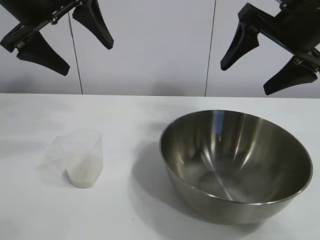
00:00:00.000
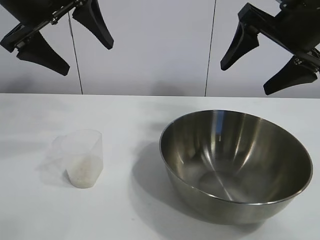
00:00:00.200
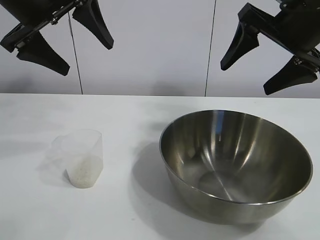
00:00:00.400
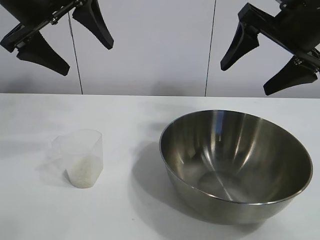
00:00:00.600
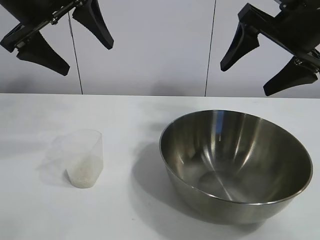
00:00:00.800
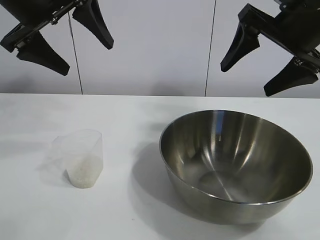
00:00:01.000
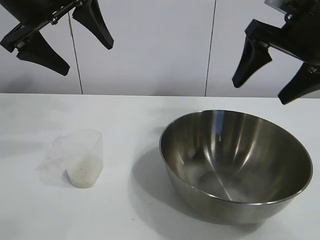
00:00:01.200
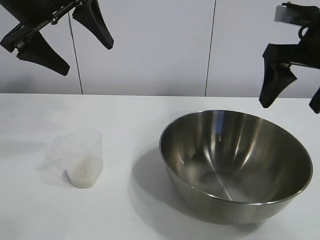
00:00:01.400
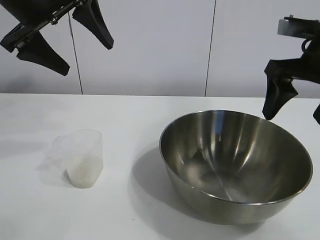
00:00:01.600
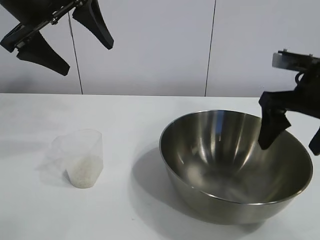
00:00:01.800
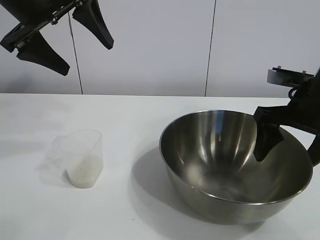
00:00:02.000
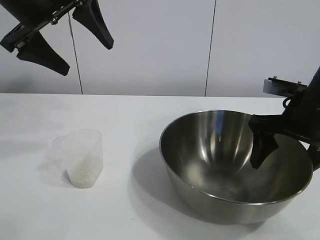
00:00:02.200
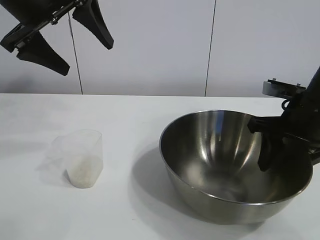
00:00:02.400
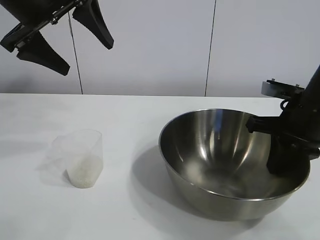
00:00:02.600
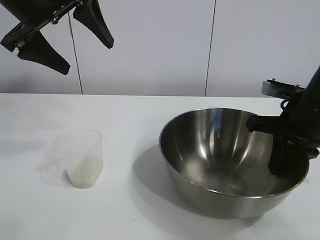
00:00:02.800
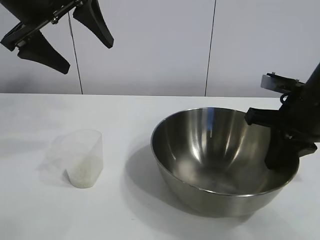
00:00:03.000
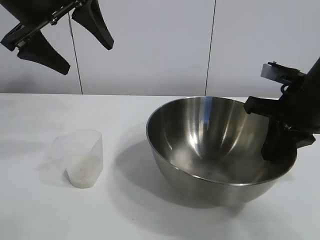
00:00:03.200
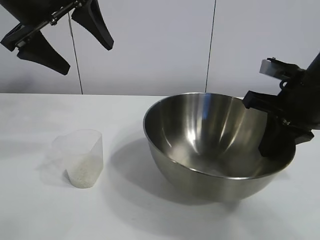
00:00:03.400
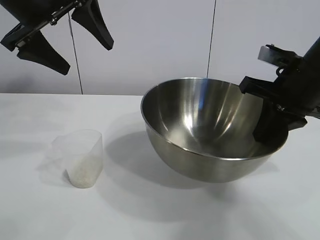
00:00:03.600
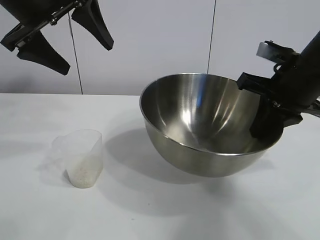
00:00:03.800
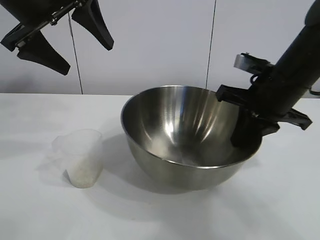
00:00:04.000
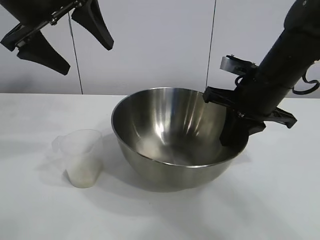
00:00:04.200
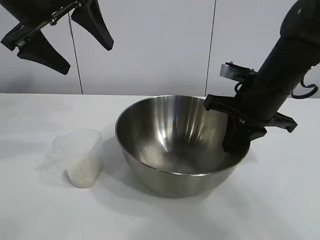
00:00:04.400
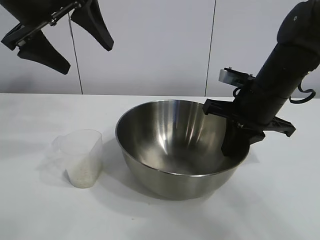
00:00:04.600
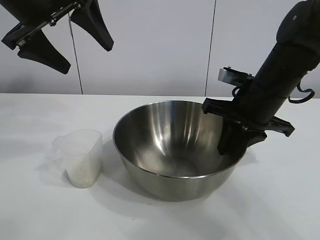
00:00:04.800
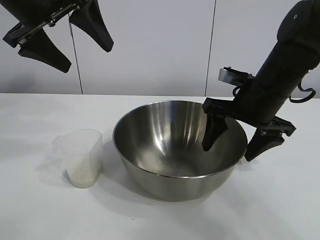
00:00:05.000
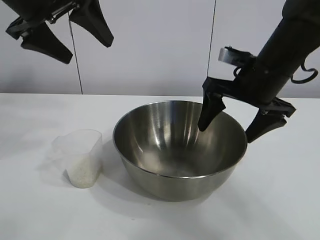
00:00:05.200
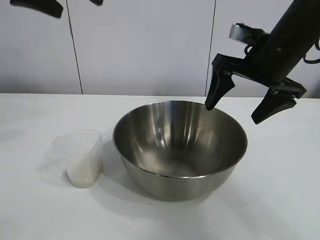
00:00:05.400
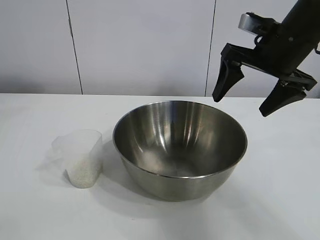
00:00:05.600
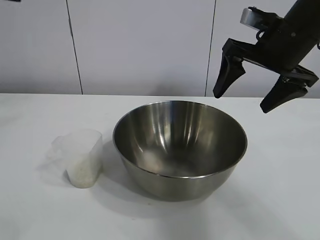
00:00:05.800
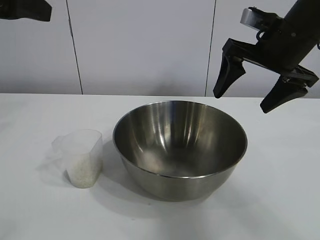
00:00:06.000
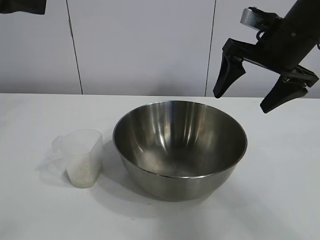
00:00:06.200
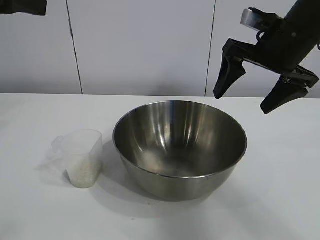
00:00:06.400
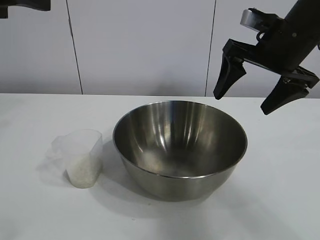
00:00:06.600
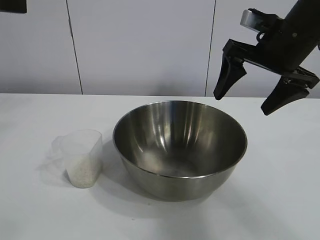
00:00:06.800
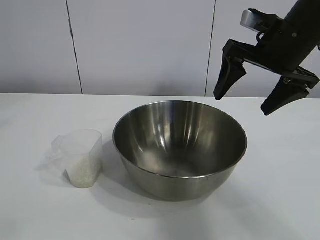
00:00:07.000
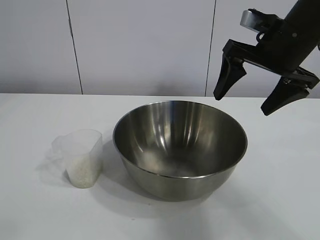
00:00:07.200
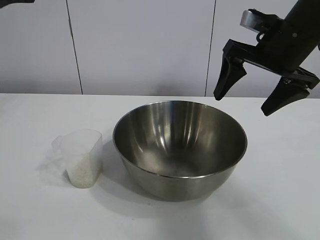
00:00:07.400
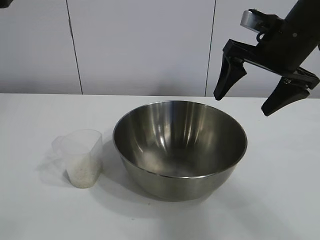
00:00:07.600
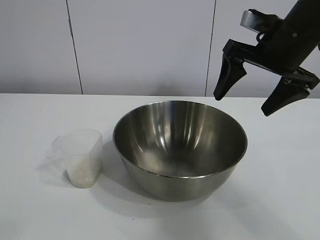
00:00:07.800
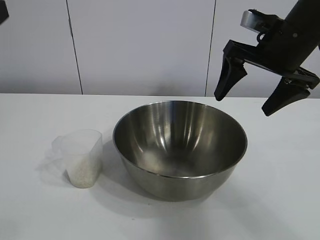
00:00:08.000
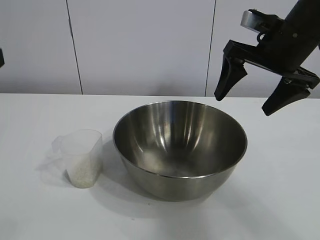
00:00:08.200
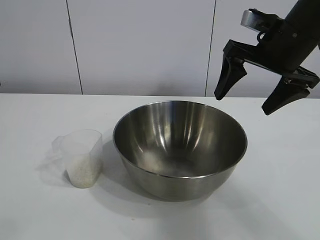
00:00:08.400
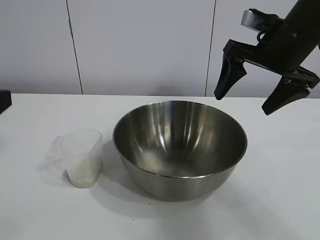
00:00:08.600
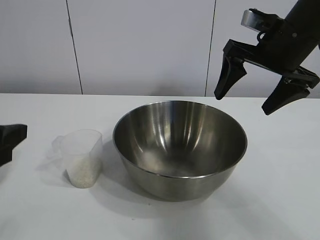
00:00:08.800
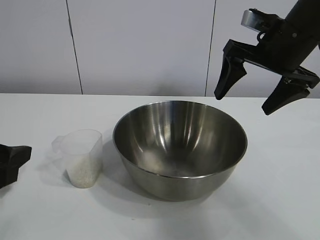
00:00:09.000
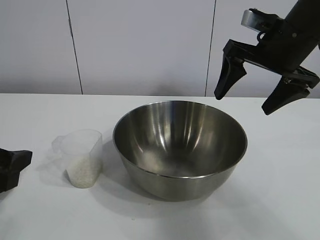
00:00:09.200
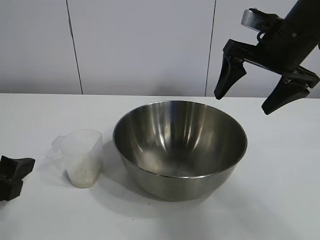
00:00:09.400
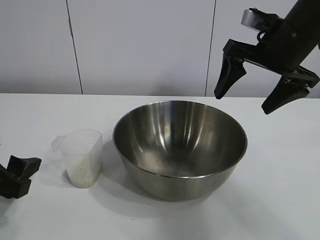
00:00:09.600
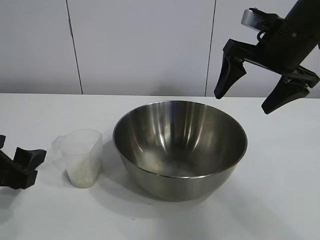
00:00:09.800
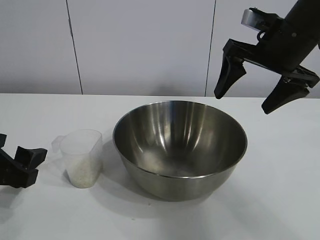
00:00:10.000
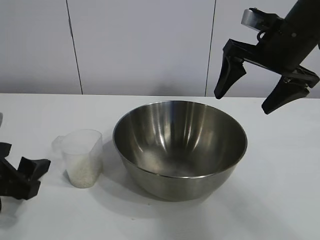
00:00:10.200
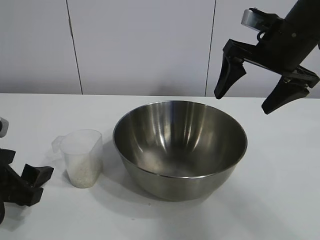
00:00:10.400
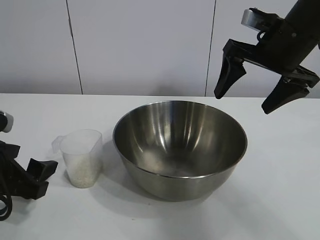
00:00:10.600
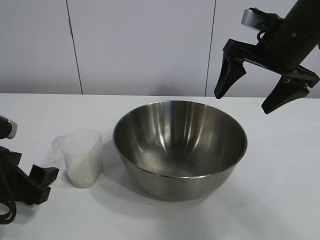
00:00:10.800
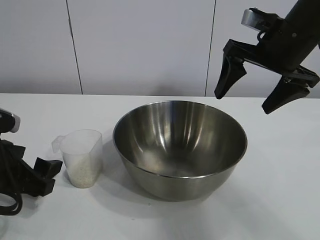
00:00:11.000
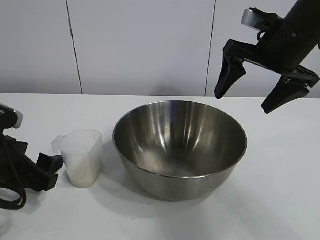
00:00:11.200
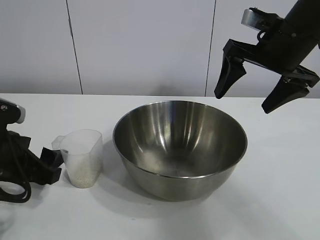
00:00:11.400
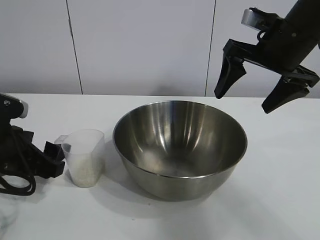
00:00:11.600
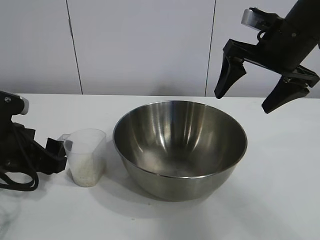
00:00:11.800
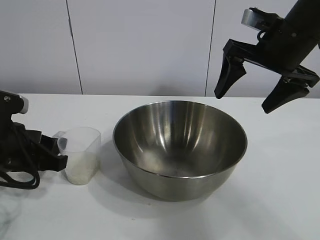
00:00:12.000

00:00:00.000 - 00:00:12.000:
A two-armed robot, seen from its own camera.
Task of the whole recording: the right gripper grasp the rice container and place it in the center of the table, the left gripper grasp the rice scoop and pour the rice into the rice container.
Step, 00:00:01.000 - 00:00:05.000: Move the bowl in the center of view with right gripper.

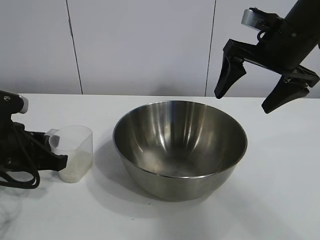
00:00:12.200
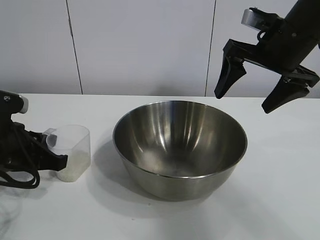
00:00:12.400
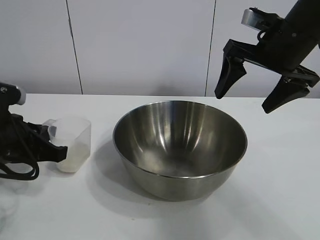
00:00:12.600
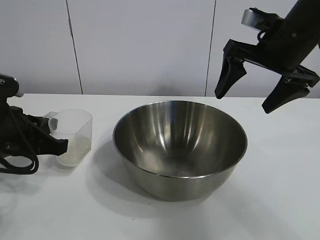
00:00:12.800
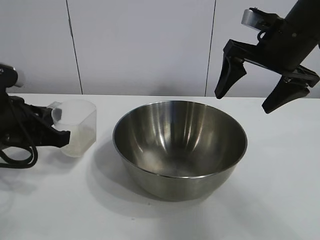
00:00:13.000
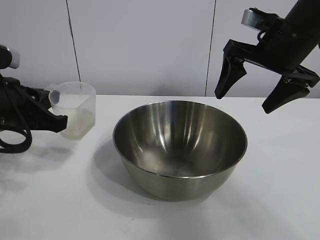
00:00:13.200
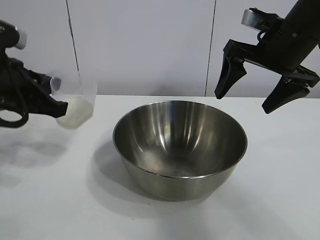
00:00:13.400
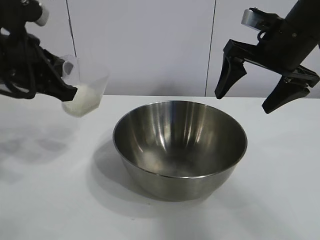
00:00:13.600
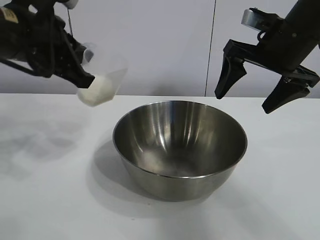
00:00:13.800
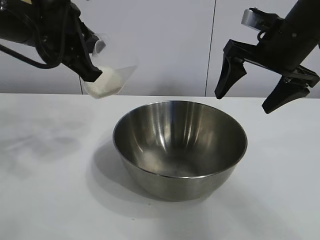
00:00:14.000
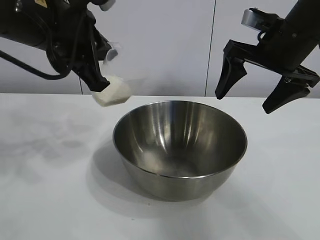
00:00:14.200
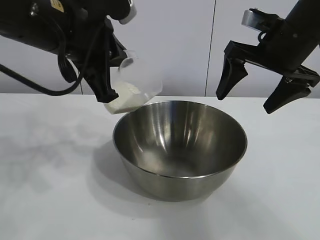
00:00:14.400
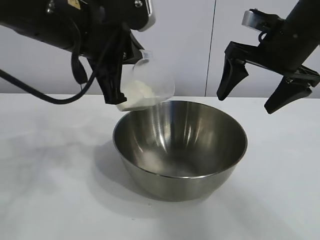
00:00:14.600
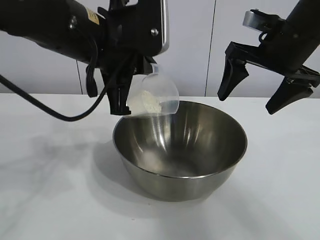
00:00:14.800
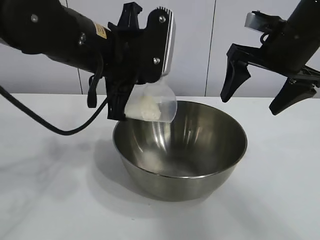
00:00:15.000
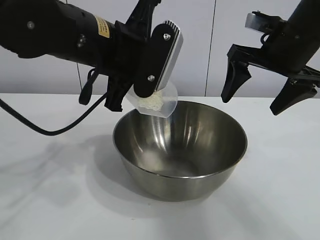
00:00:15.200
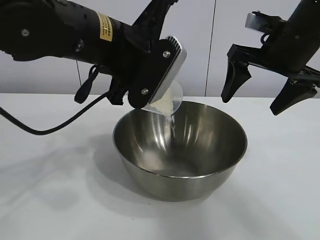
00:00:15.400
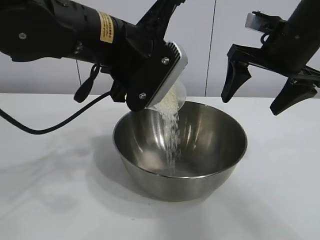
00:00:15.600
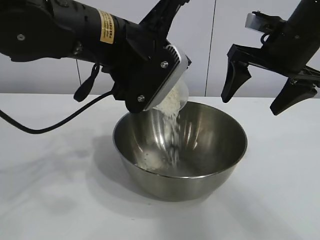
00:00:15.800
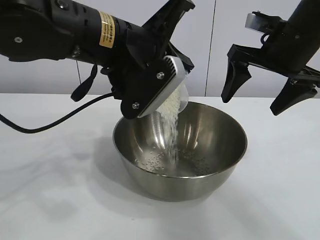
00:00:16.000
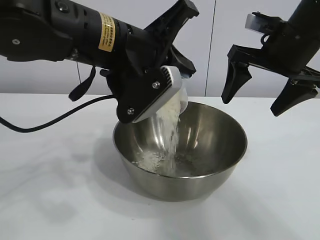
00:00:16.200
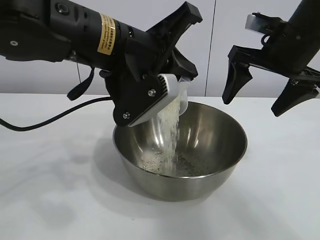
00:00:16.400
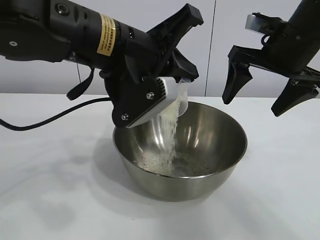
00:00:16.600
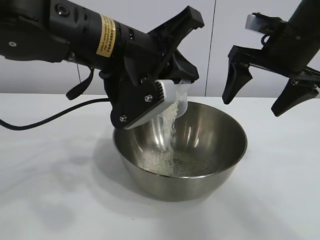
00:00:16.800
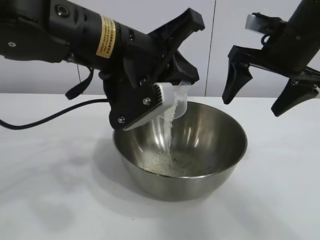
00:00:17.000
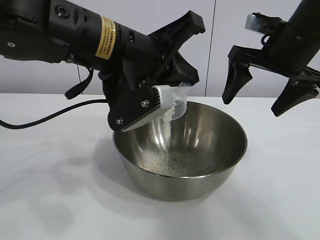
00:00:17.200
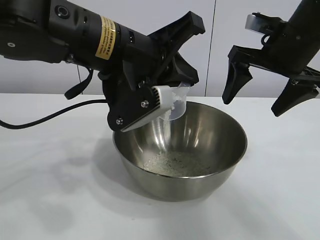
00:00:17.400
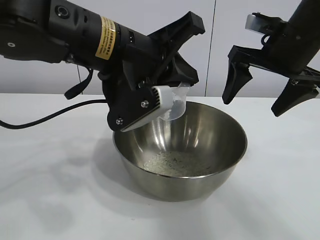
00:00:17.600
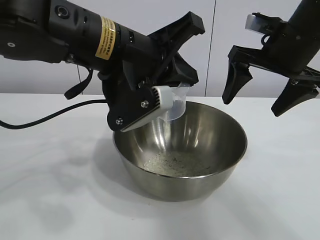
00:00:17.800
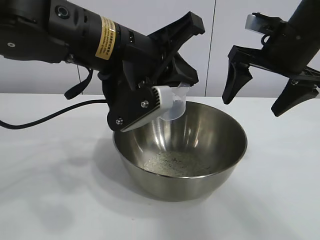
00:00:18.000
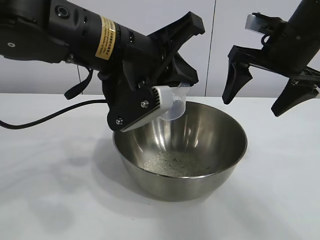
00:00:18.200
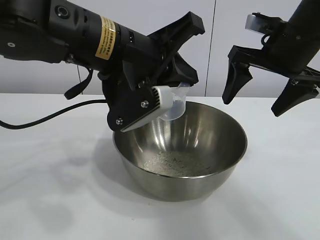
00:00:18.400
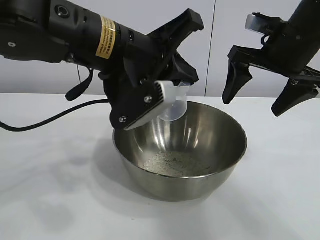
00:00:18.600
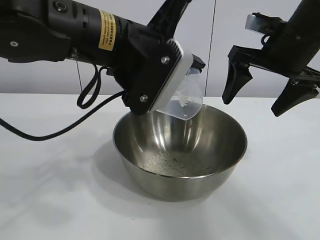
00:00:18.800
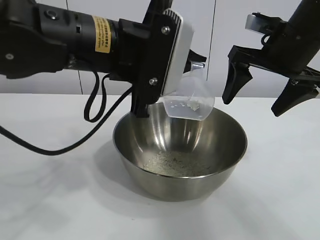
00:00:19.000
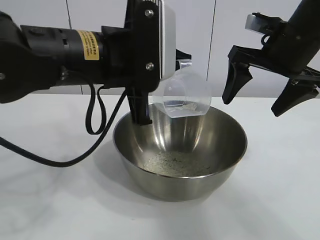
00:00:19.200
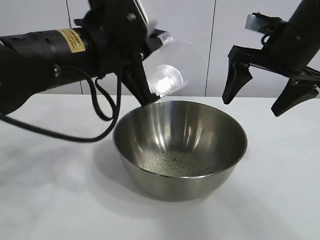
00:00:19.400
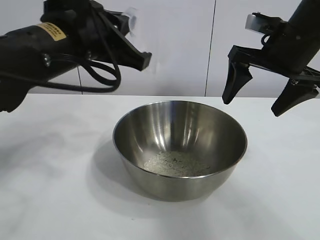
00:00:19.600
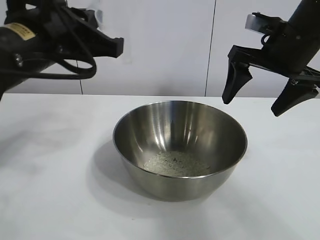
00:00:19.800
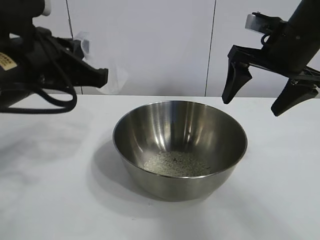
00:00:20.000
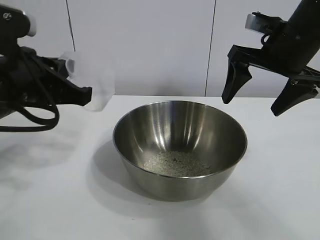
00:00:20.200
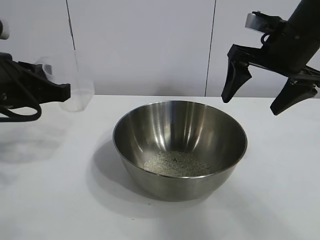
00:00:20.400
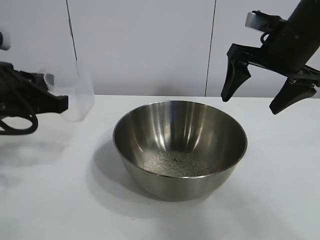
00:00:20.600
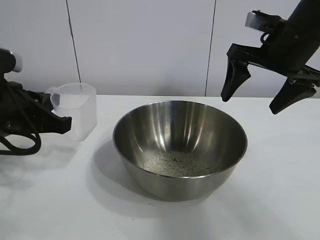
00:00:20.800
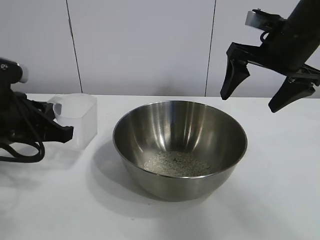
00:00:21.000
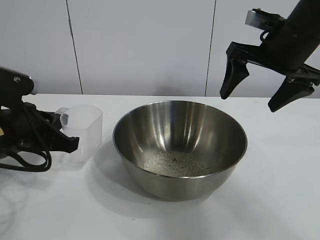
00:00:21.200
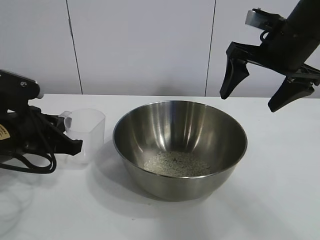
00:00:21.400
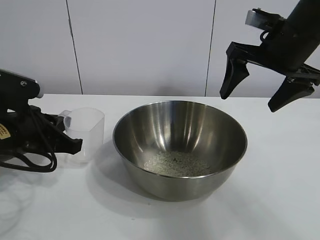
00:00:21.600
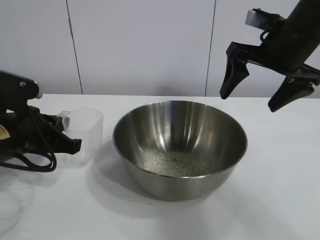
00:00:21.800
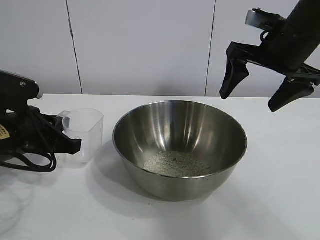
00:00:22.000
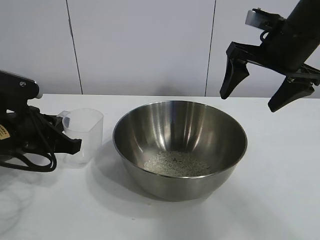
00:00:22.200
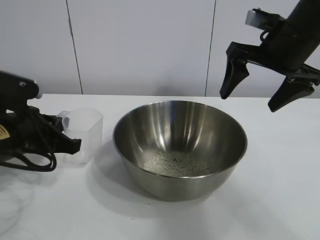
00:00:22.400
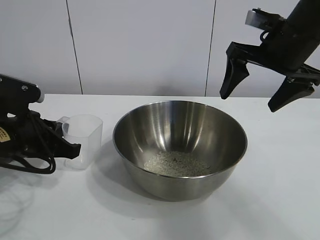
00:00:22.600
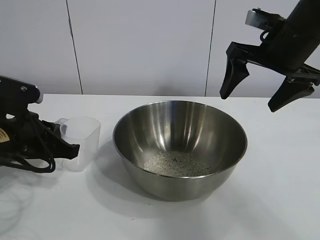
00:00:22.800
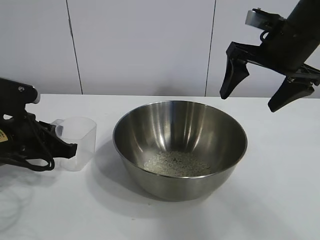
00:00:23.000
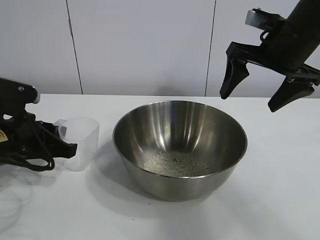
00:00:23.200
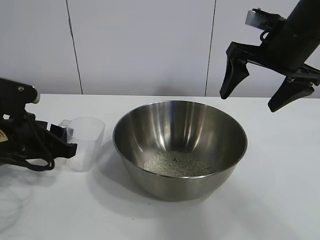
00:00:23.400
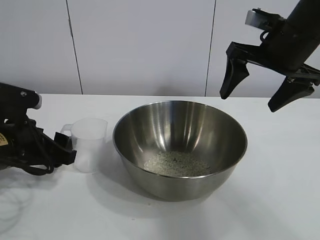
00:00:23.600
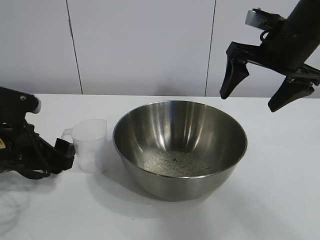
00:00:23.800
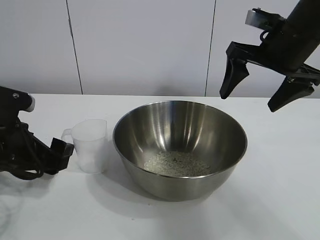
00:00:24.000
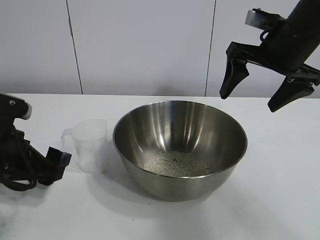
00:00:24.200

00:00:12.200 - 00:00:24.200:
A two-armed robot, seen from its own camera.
Task of the whole recording: the right gripper grasp the rice container and place it in the center of the table, the left gripper grasp the rice scoop and pour the rice into the rice container.
Step, 00:00:12.600 - 00:00:18.600: Pour the rice from the cup into the bowl with the left gripper.
Step, 00:00:18.800 - 00:00:23.600: Place the cup on the table with the left gripper.
